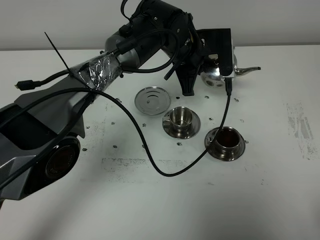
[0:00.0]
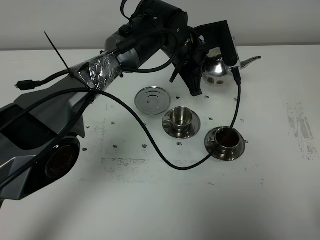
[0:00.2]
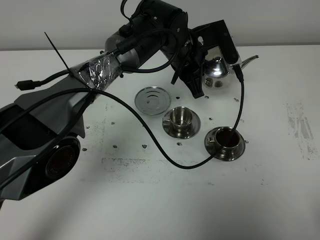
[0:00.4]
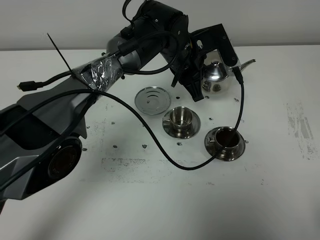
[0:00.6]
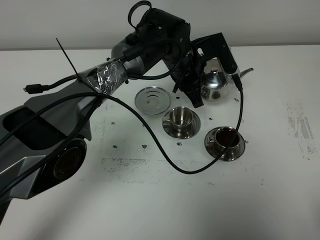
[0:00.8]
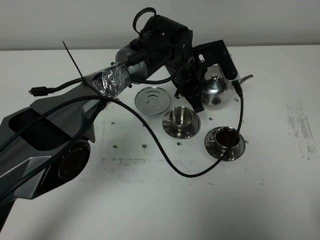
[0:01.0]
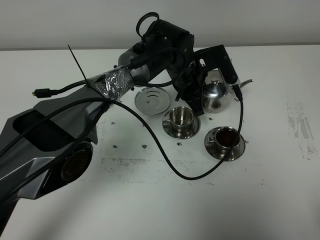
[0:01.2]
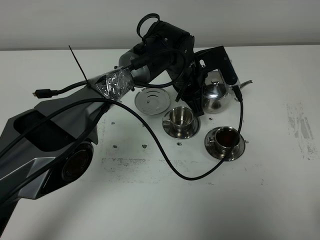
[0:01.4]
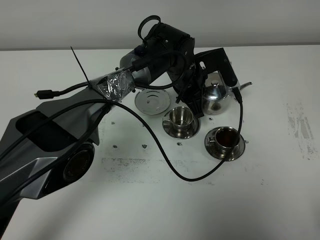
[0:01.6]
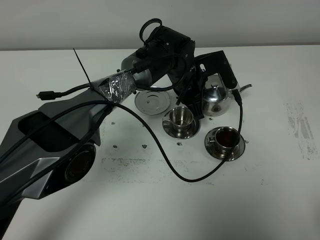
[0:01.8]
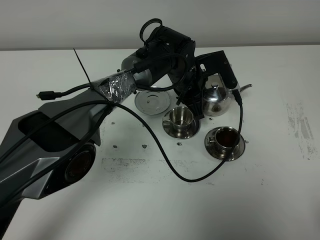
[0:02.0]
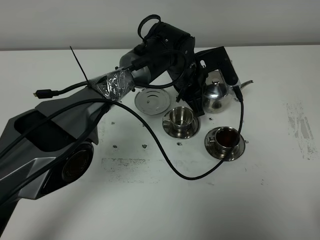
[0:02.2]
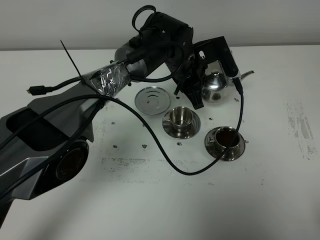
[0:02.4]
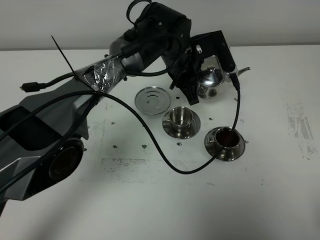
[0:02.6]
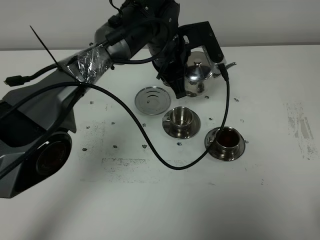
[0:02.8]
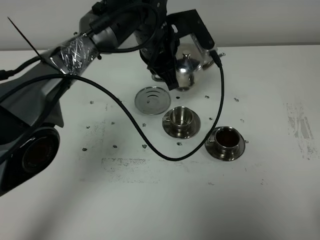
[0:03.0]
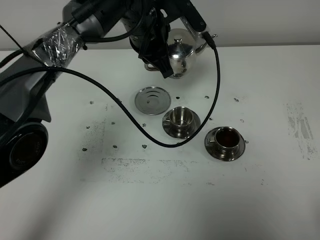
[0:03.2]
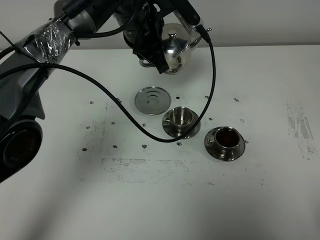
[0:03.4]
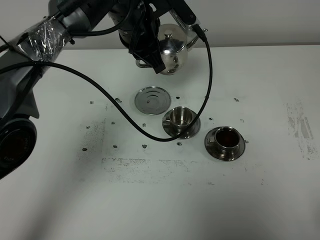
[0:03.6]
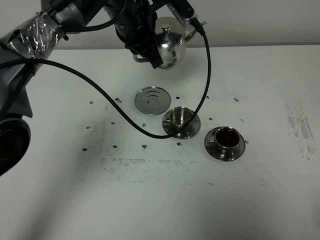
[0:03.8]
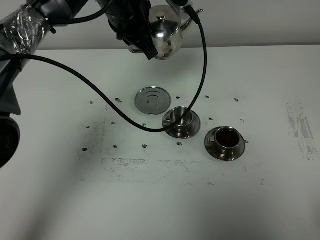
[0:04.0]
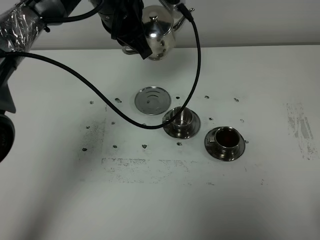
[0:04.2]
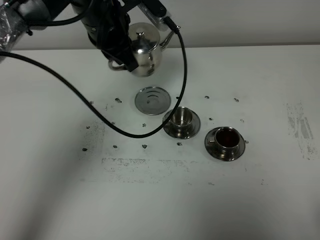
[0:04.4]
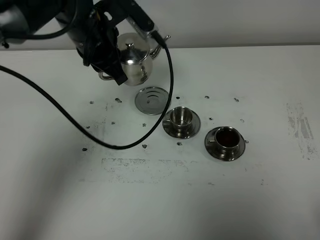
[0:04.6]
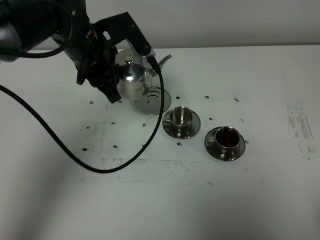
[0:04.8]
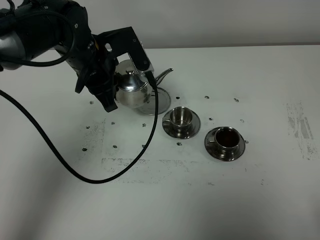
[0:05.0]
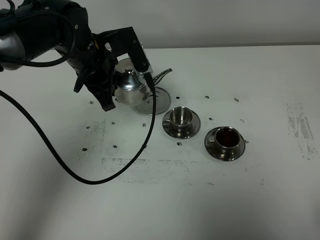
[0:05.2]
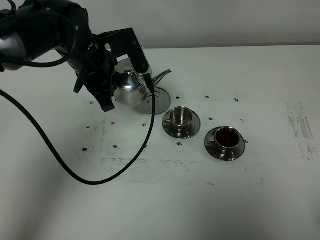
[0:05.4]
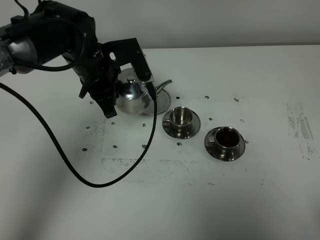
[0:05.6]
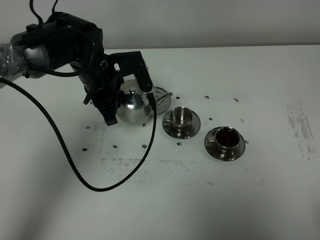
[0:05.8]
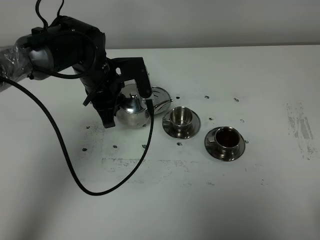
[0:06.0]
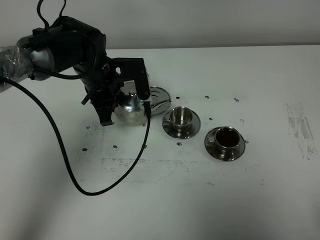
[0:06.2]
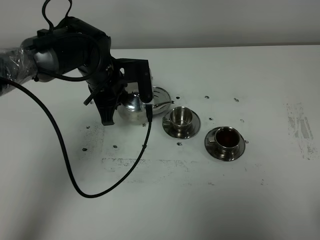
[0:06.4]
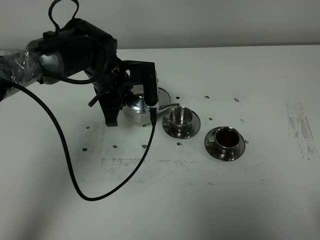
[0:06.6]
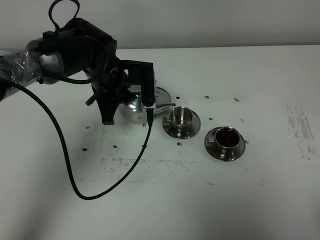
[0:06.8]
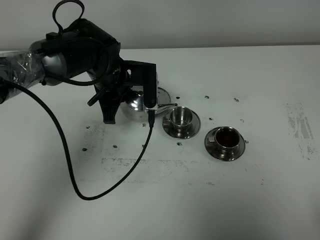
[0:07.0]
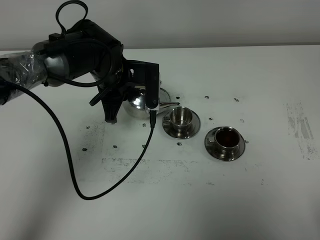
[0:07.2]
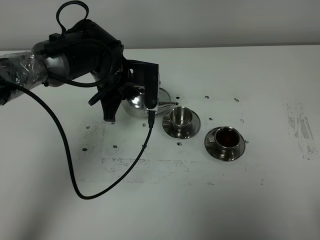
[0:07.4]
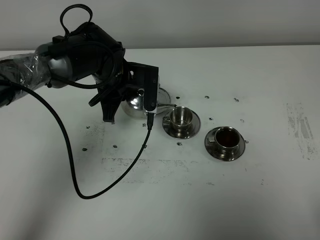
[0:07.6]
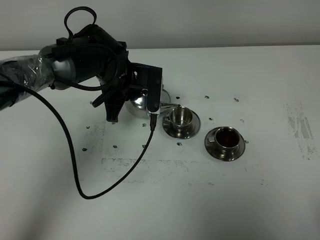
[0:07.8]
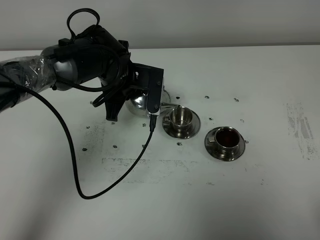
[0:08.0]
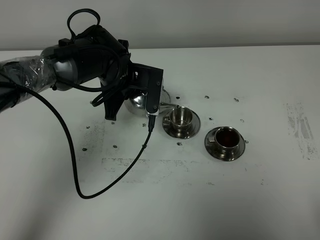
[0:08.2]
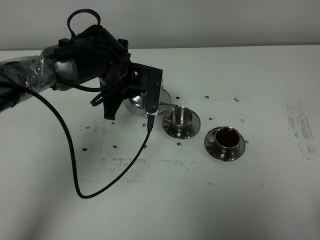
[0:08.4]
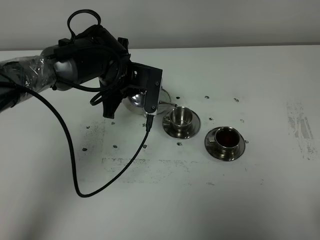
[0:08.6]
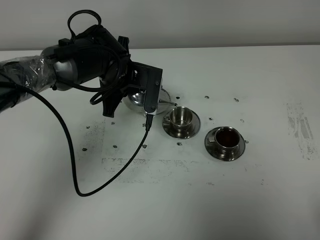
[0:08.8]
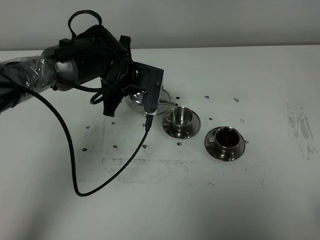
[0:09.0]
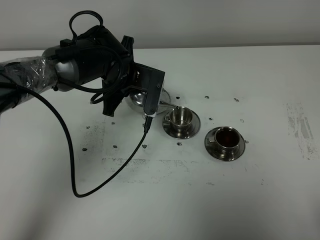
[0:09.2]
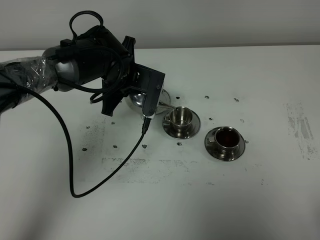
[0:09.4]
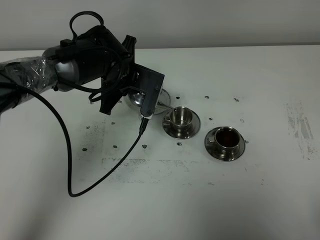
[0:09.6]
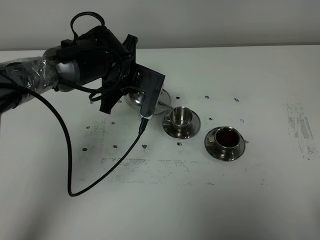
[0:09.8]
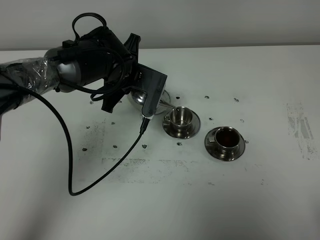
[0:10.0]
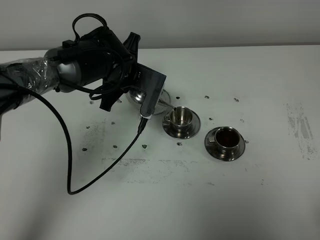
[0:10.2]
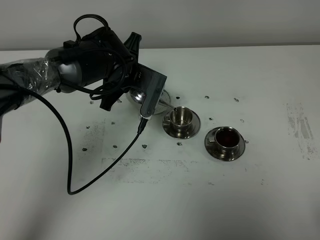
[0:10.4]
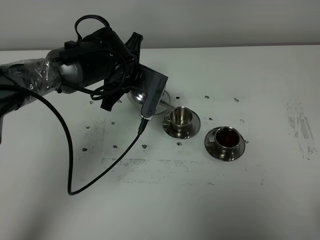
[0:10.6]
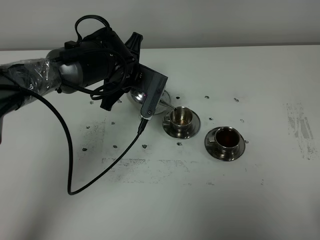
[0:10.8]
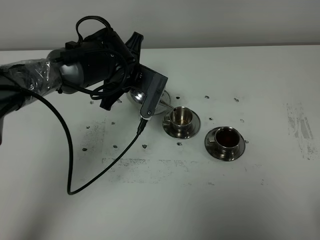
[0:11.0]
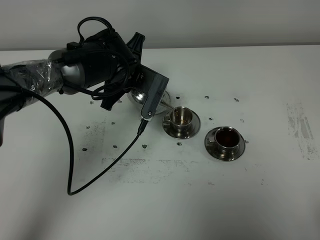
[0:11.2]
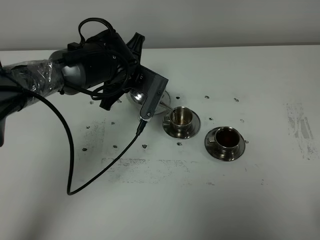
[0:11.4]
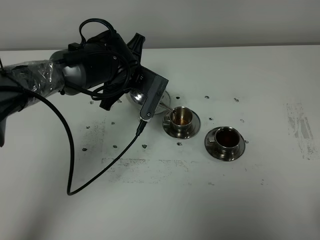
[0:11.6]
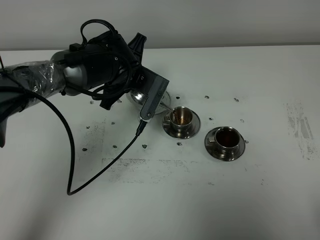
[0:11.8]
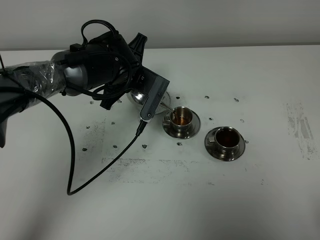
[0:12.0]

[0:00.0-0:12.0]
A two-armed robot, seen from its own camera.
Task of the whole recording: grasp the stainless steel teapot and pour the tea into the two stainless steel teacups one by one, put the stainless steel teapot back in its original place.
0:00.0 to 0:01.6: The left gripper moves downward, some 5 cm.
0:01.6 to 0:03.0: The left gripper is displaced upward and to the left by roughly 10 cm.
0:03.0 to 0:04.4: The left gripper travels to the left by about 10 cm.
0:04.4 to 0:06.0: The left gripper shifts about 10 cm downward.
0:07.6 to 0:09.0: The grippers move only a little.
0:09.0 to 0:12.0: The grippers stay close to where they were, moving slightly.

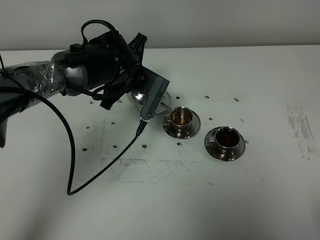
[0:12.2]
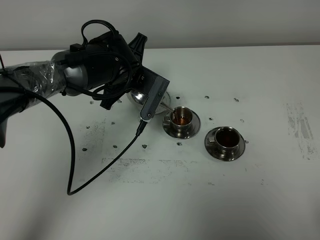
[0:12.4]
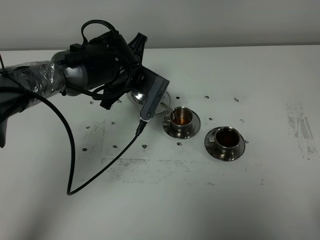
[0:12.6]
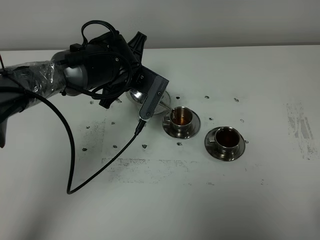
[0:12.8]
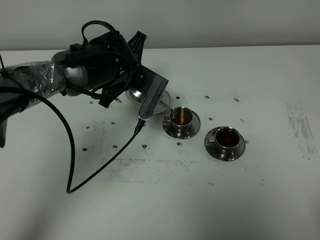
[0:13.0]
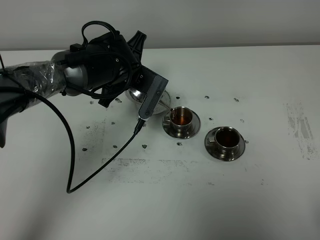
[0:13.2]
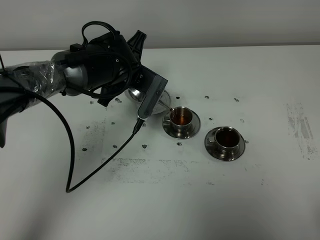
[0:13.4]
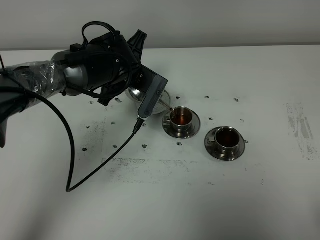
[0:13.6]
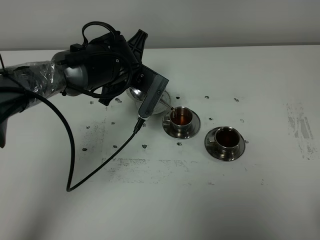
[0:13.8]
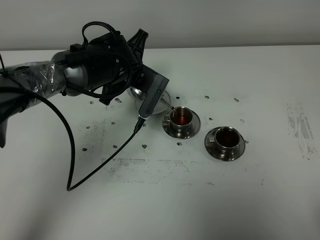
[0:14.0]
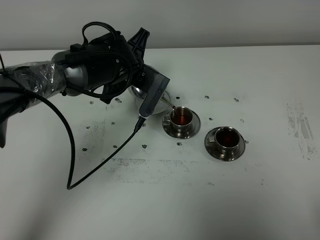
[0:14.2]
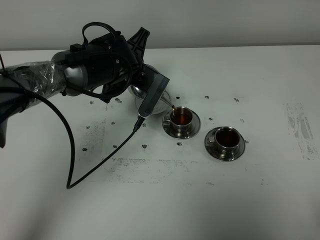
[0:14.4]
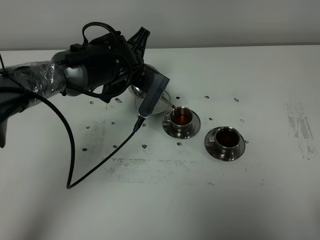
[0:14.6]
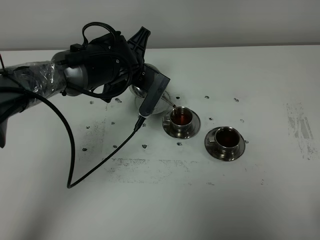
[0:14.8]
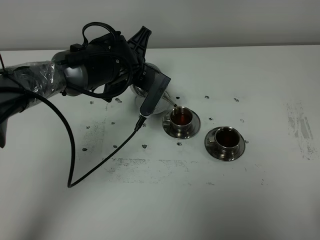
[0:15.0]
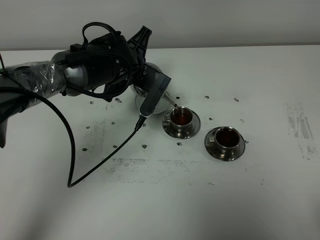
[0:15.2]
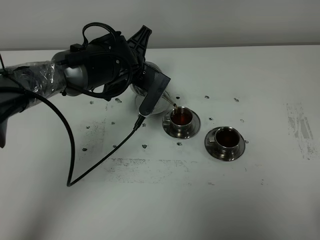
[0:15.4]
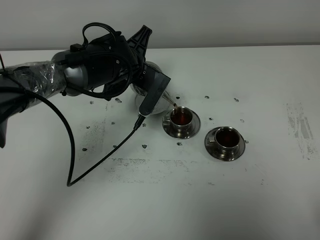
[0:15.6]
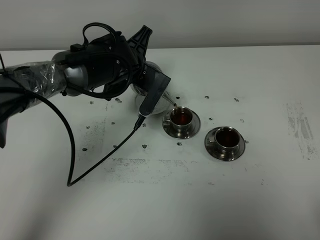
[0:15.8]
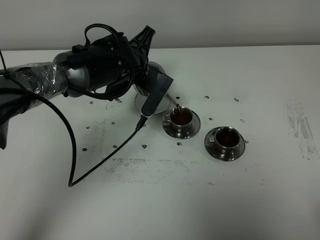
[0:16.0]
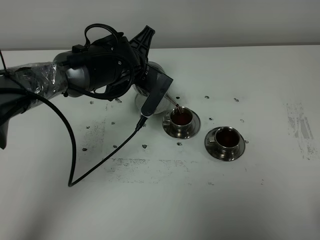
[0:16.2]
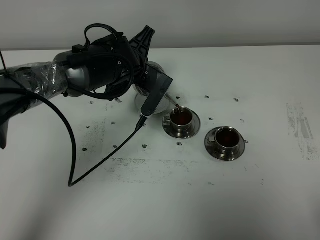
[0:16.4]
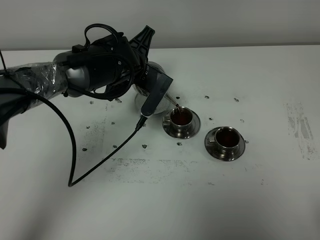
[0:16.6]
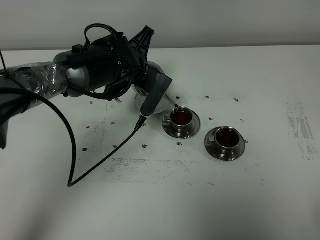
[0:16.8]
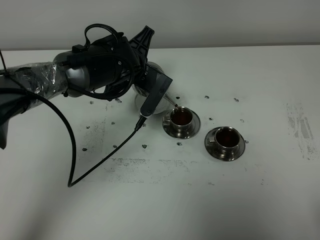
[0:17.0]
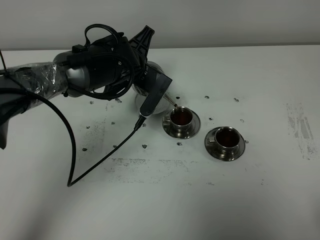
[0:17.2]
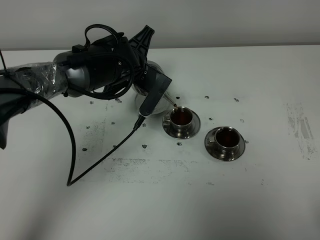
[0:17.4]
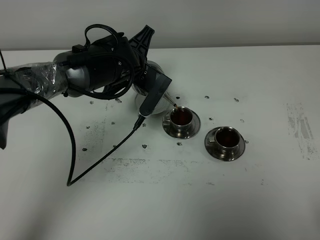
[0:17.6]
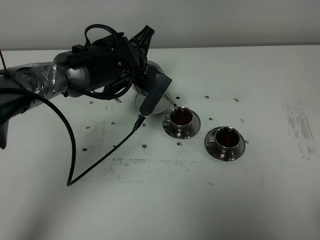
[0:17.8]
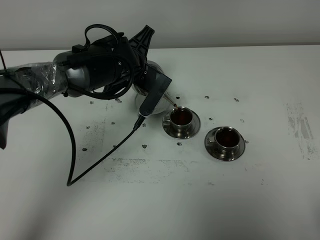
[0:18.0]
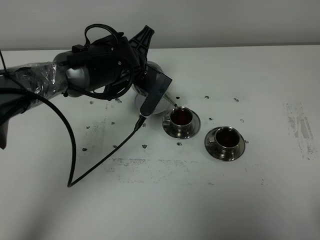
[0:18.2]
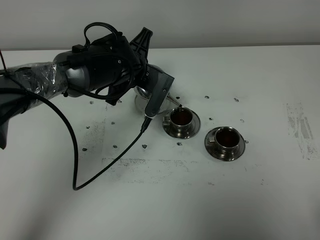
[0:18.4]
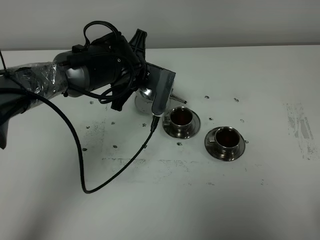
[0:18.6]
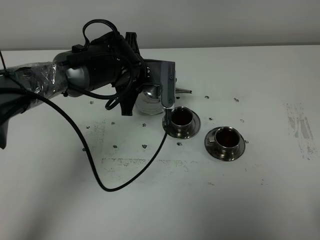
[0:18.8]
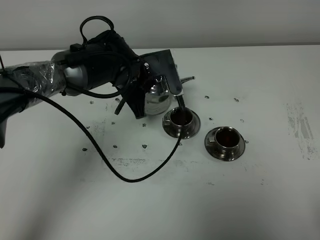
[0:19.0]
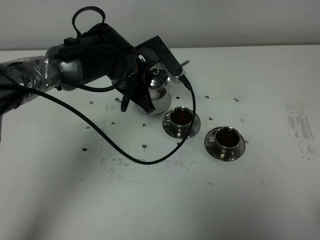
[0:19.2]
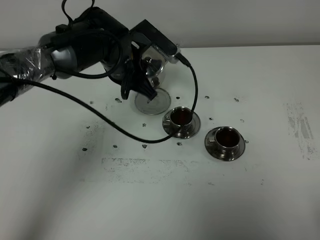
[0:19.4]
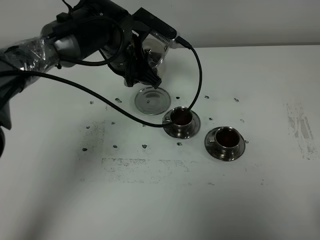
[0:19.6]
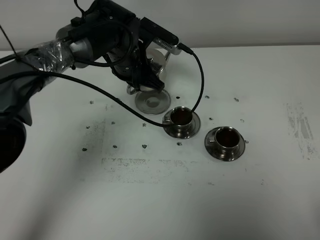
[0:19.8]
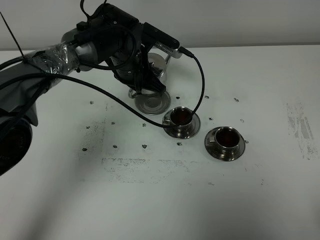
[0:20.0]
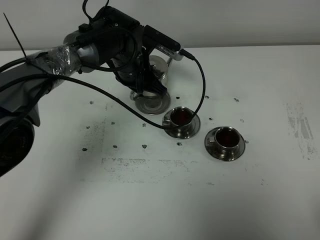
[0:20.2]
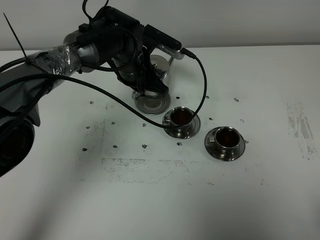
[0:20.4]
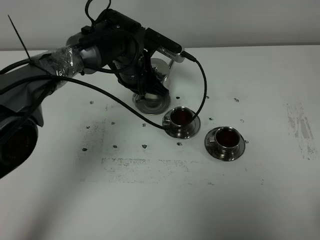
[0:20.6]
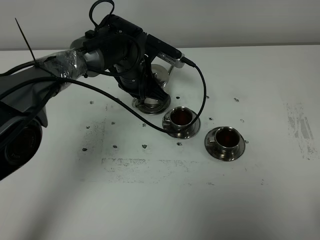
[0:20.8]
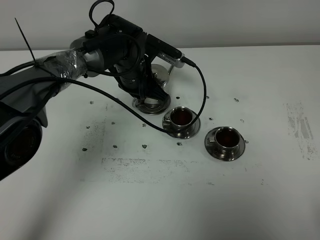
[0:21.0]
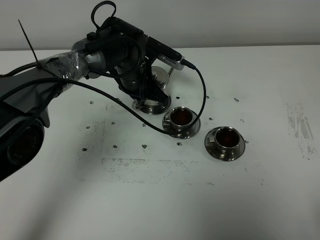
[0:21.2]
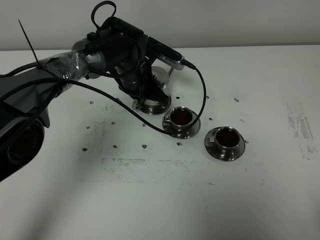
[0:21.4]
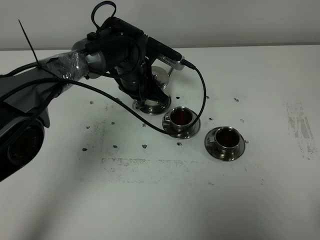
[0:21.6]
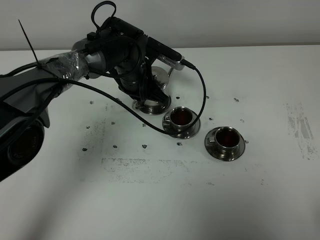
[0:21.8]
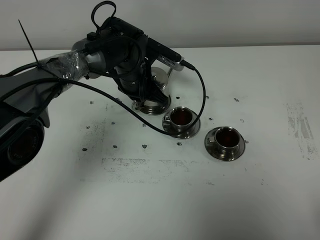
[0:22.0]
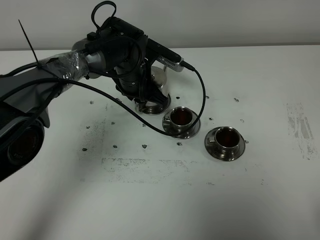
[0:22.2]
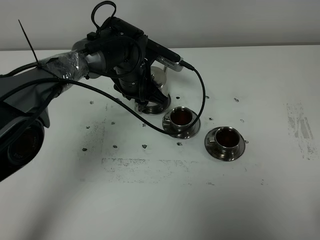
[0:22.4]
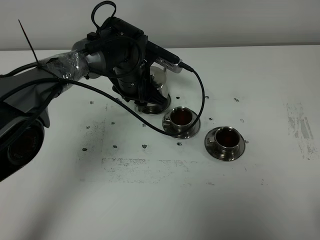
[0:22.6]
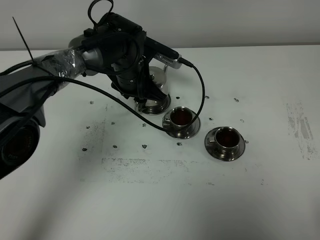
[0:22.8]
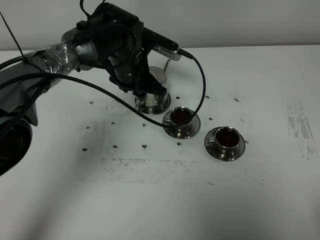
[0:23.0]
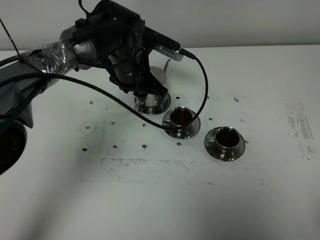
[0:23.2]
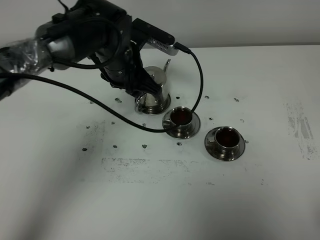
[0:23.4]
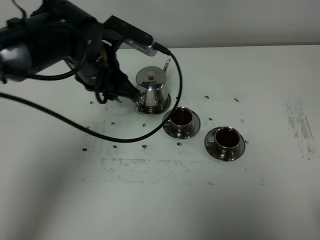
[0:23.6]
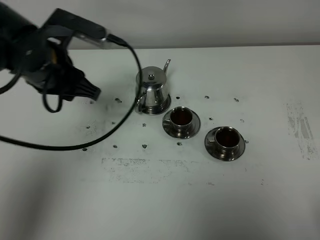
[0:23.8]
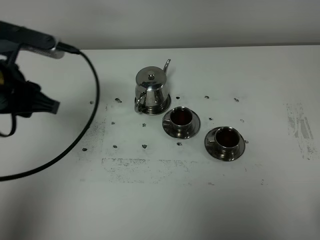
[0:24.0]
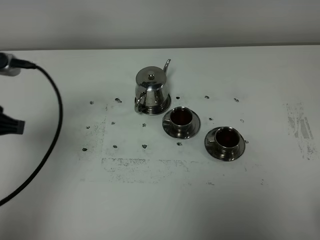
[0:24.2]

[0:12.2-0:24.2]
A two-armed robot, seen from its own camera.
Task of the whole recording: grasp the stainless steel teapot and pour the tea into the two stainless steel teacups one by one, put the stainless steel teapot back in its original place.
Step, 0:12.2 to 0:18.4: Pour tea into the teacup with the left gripper.
0:12.2 to 0:13.8: Neither gripper changes place.
0:13.8 to 0:15.2: Both grippers stay put.
0:15.2 to 0:18.2: Both grippers stay about where they are.
0:19.8 to 0:21.2: The grippers make only small movements.
0:21.2 to 0:22.6: The left gripper opens.
0:22.6 to 0:24.2: The left gripper travels backward, to the left and upward by some 35 cm.
